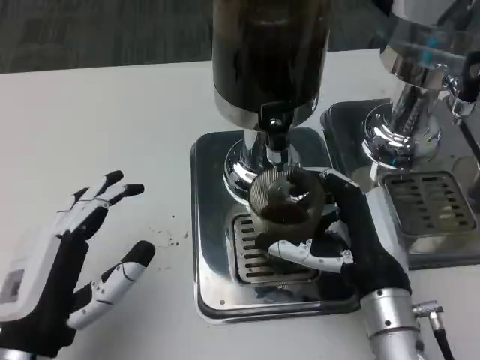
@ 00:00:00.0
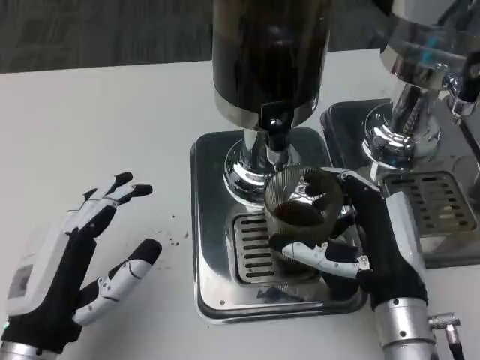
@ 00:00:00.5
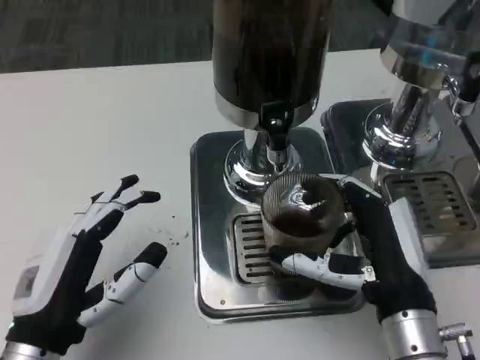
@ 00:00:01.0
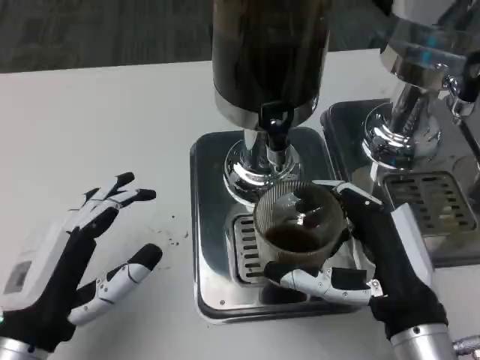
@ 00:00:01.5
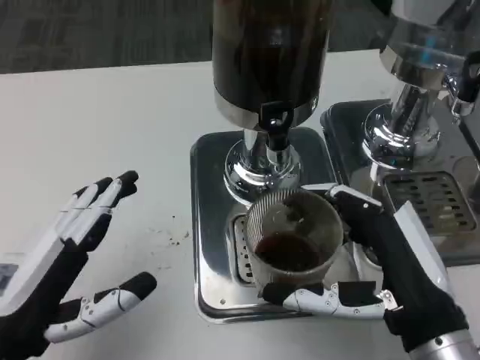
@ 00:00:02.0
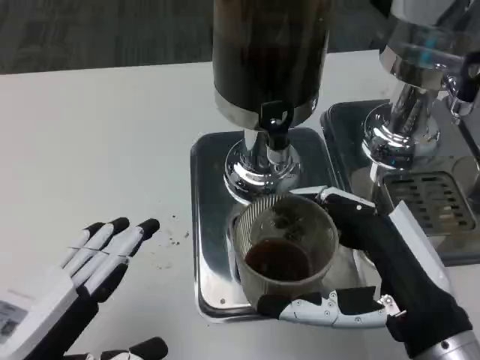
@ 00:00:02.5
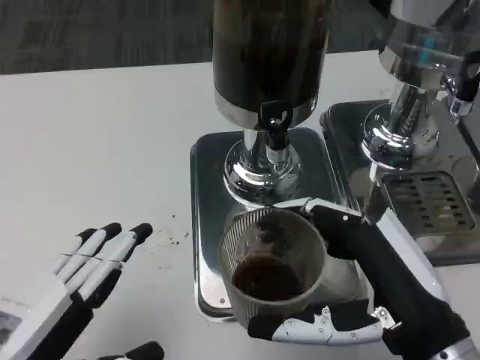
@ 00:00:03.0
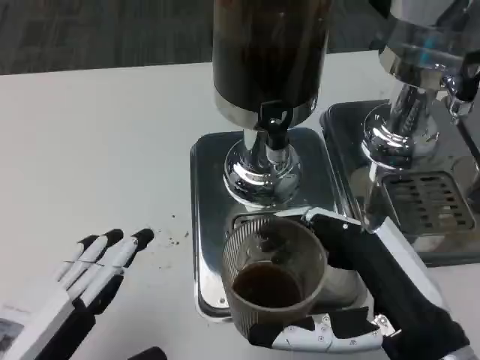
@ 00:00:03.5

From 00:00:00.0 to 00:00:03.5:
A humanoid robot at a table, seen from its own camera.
Task of the whole recording: Grasp the cup under the faucet to collect the drink, then remove the cup.
From 00:00:00.0 to 00:00:02.0: The left hand changes place by roughly 5 cm. Meanwhile the right hand shifts some 10 cm backward and upward.

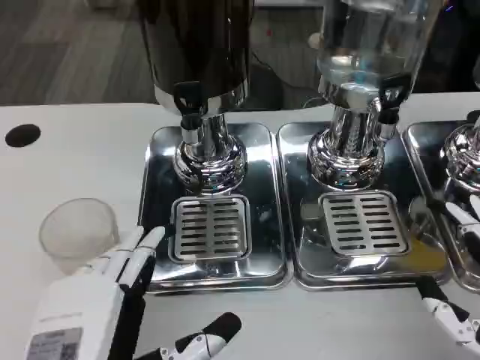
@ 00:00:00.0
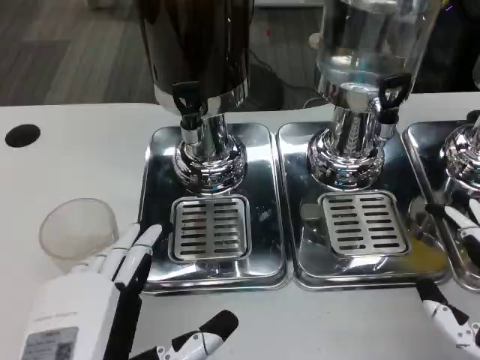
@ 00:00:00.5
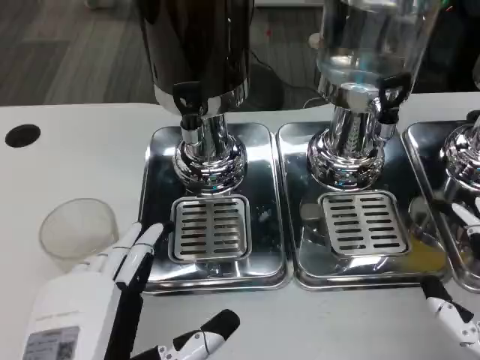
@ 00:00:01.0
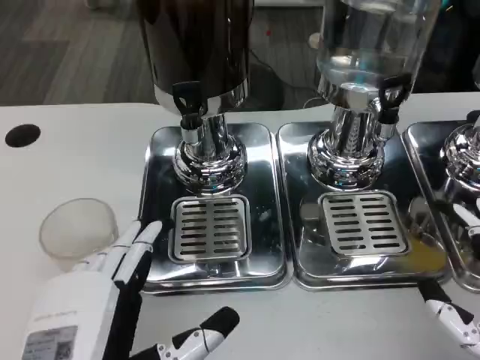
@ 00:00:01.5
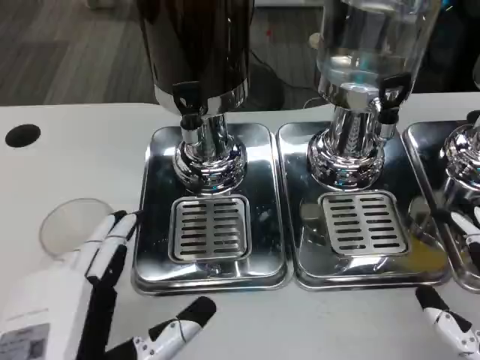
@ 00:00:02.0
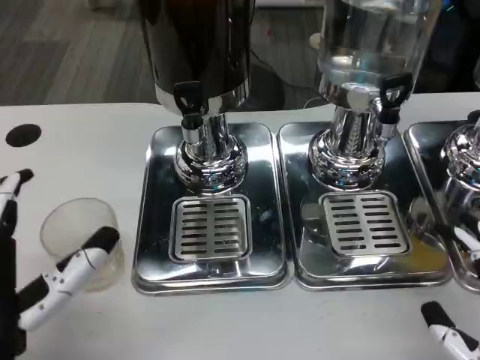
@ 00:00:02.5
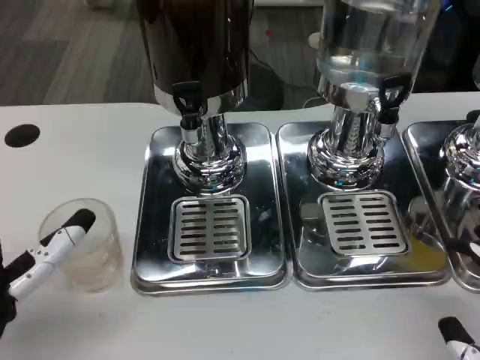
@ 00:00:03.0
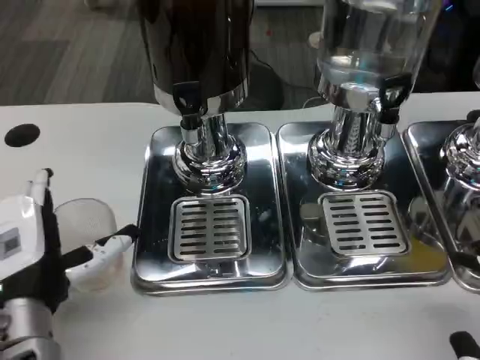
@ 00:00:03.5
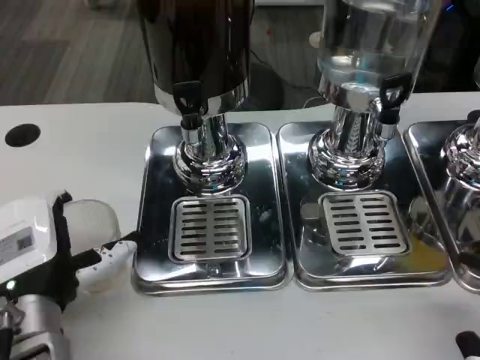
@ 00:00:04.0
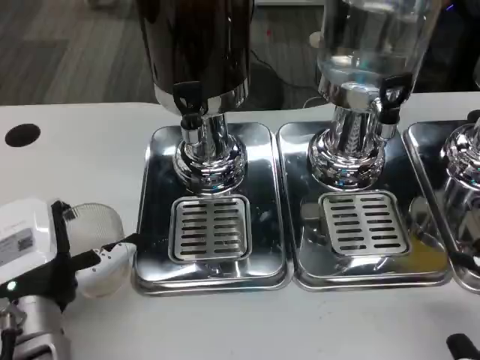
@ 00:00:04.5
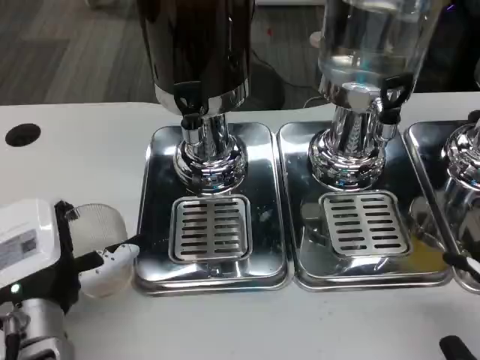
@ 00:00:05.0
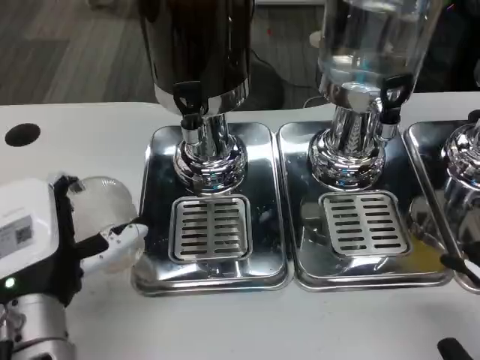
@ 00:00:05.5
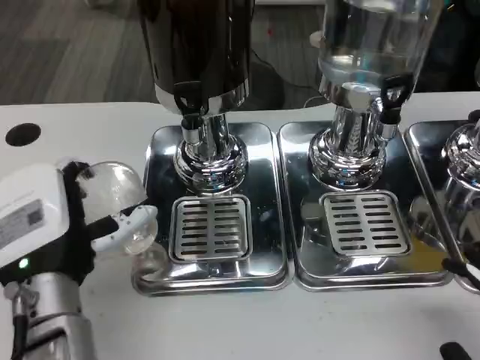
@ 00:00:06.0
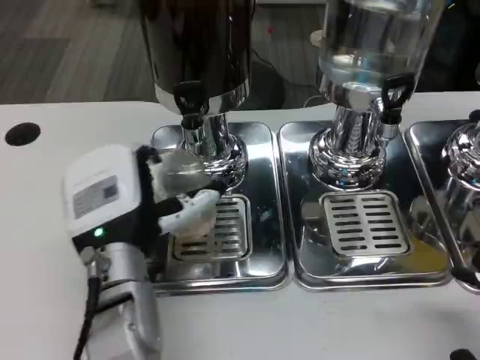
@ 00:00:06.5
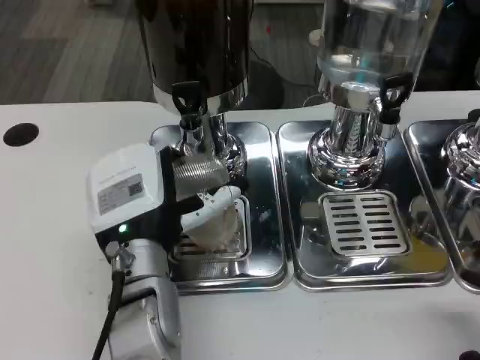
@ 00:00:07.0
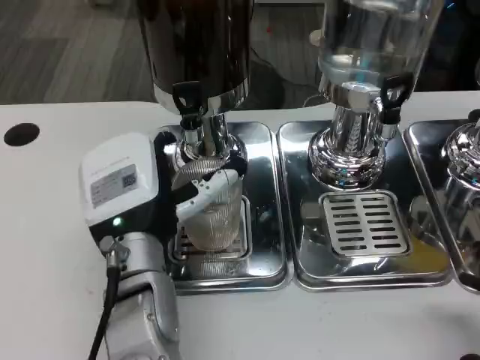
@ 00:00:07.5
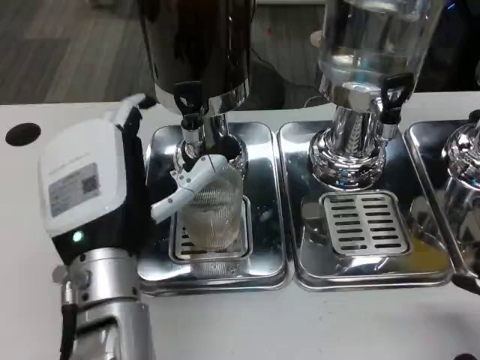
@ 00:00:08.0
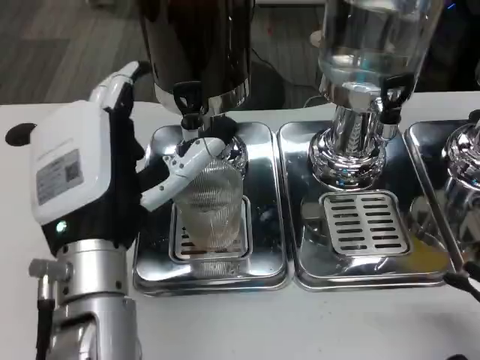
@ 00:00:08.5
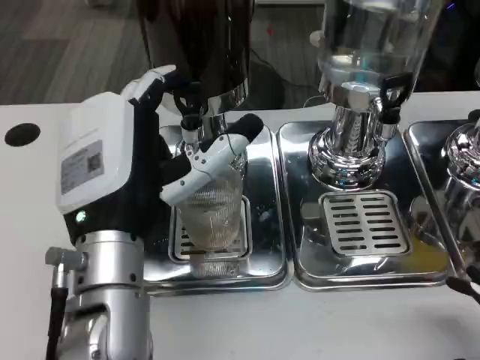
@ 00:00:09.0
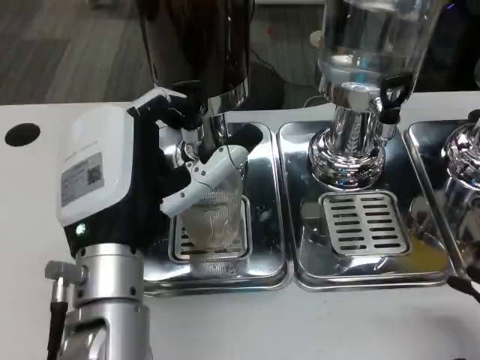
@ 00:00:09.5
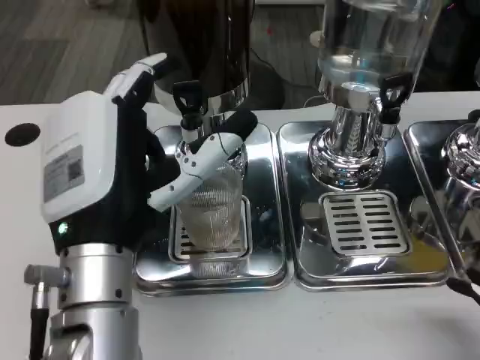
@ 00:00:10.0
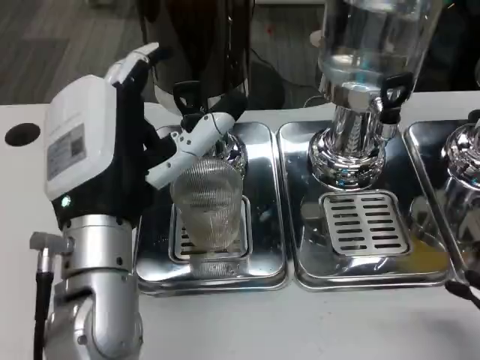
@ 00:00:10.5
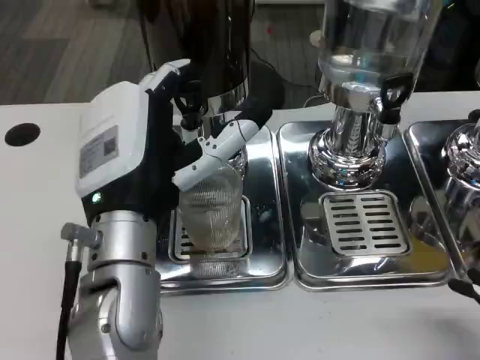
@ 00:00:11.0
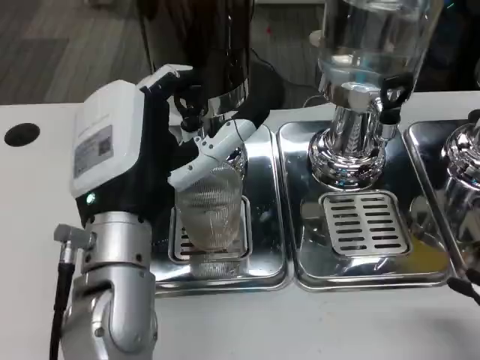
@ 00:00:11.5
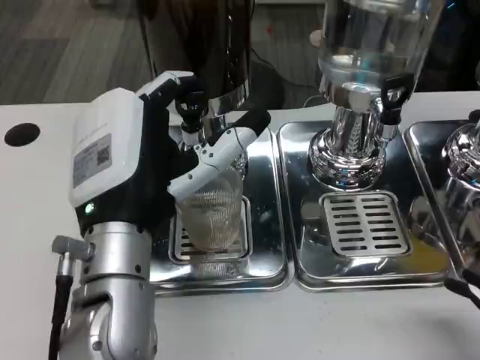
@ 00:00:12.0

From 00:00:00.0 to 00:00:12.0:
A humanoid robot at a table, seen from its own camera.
Task of the whole recording: Grasp the cup under the faucet to collect the drink, then remove the cup.
From 00:00:00.0 to 00:00:02.0: There are only small adjustments of the hands.
From 00:00:02.0 to 00:00:04.0: The left hand travels forward by some 10 cm. Meanwhile the right hand moves about 5 cm.
From 00:00:04.0 to 00:00:06.0: The hands make only small movements.
From 00:00:06.0 to 00:00:08.0: The left hand ends up about 5 cm from where it was.
From 00:00:08.0 to 00:00:12.0: The hands move only a little.

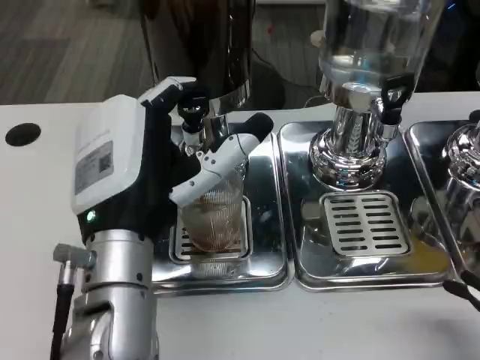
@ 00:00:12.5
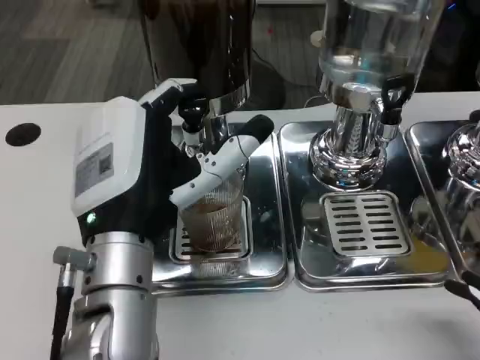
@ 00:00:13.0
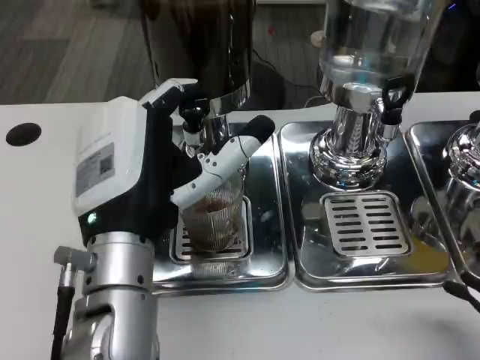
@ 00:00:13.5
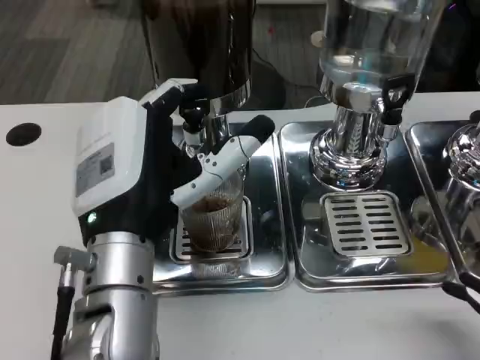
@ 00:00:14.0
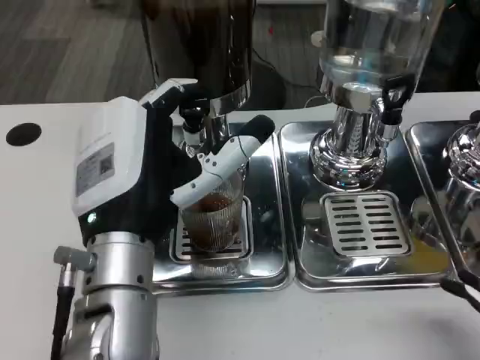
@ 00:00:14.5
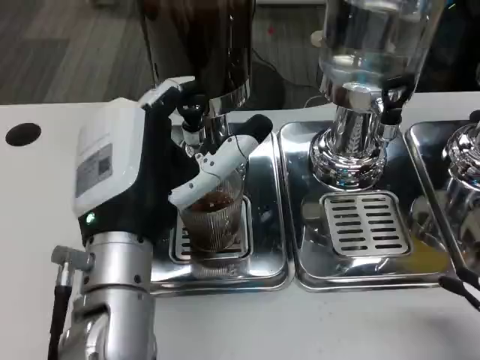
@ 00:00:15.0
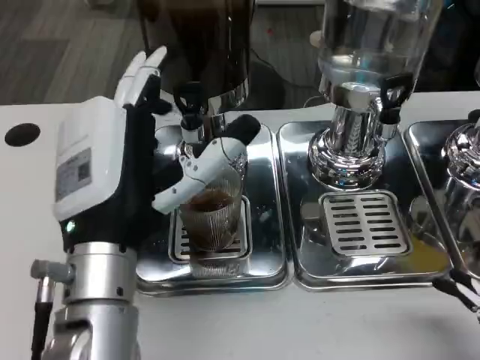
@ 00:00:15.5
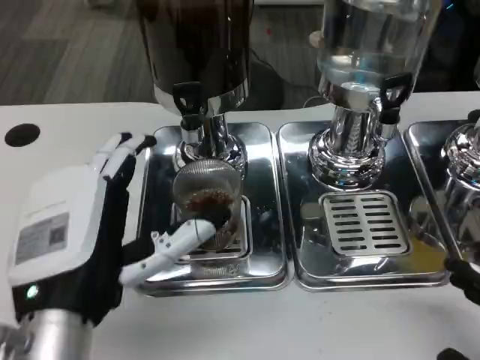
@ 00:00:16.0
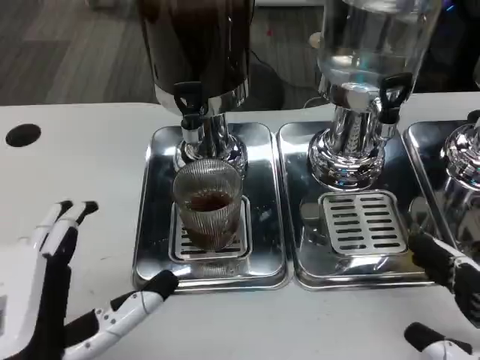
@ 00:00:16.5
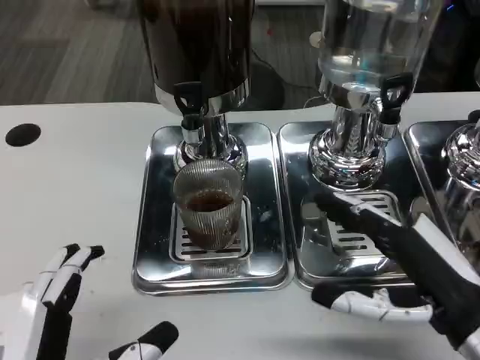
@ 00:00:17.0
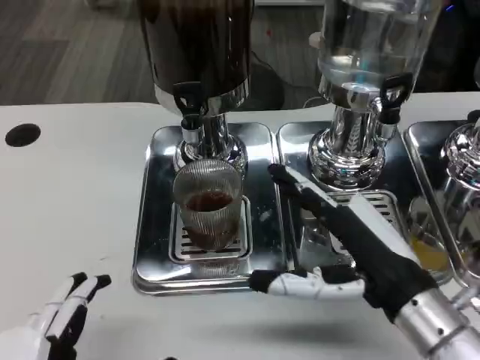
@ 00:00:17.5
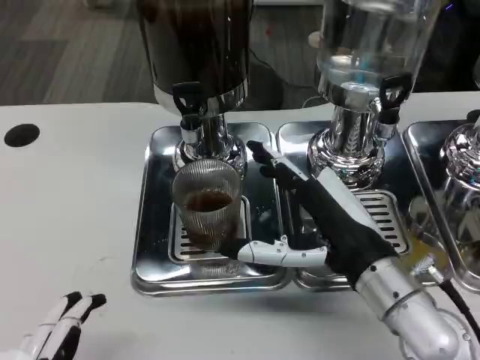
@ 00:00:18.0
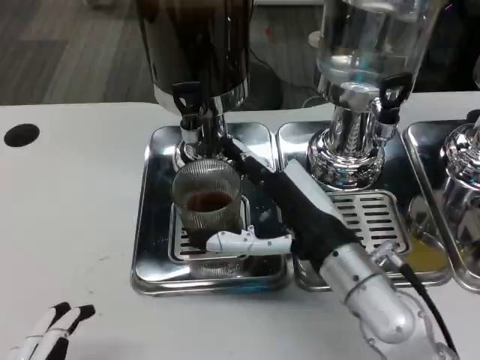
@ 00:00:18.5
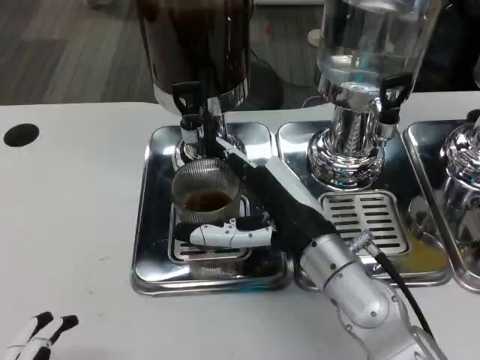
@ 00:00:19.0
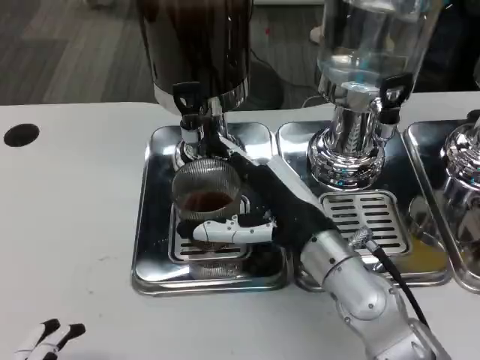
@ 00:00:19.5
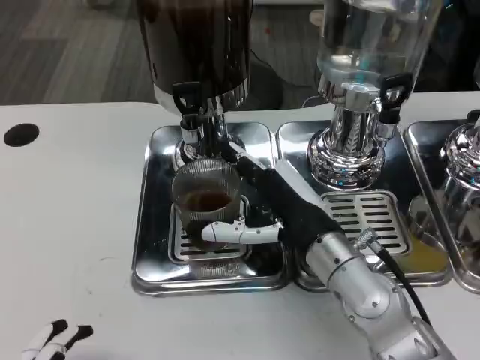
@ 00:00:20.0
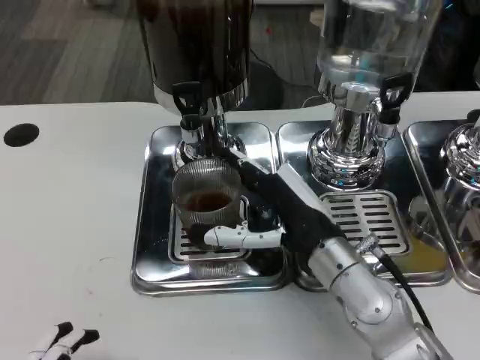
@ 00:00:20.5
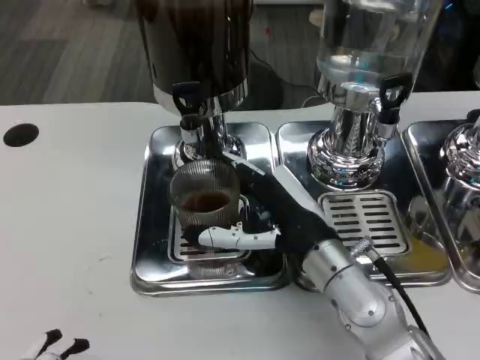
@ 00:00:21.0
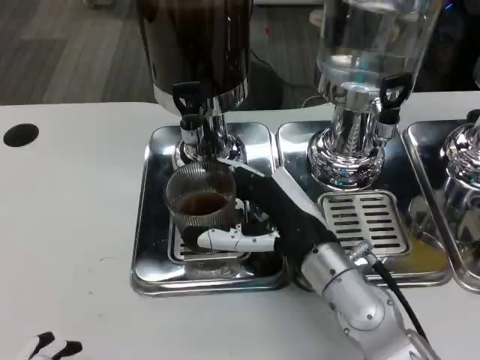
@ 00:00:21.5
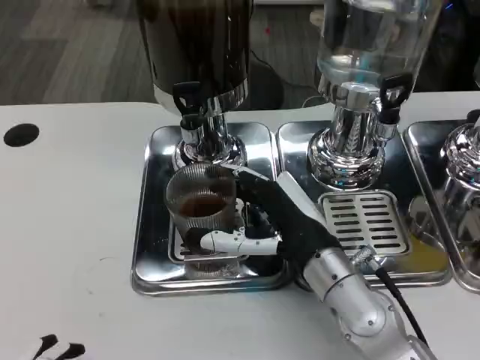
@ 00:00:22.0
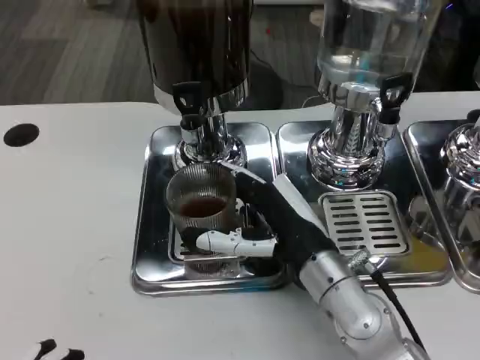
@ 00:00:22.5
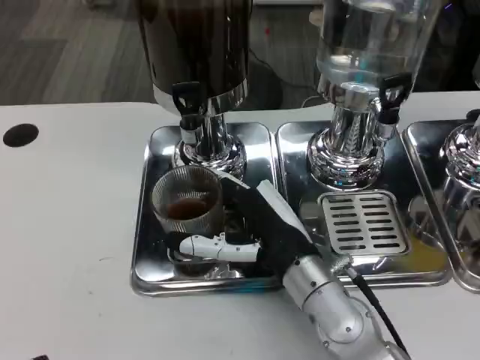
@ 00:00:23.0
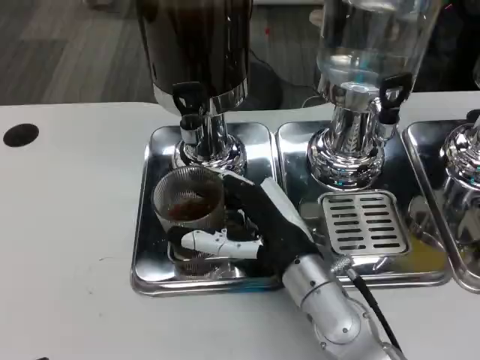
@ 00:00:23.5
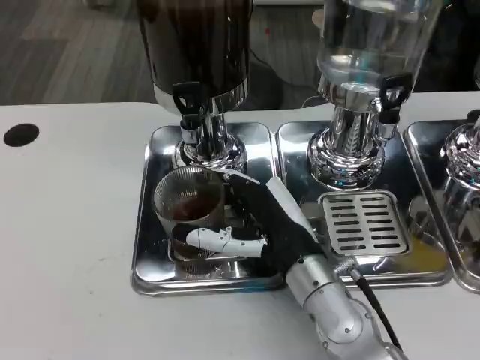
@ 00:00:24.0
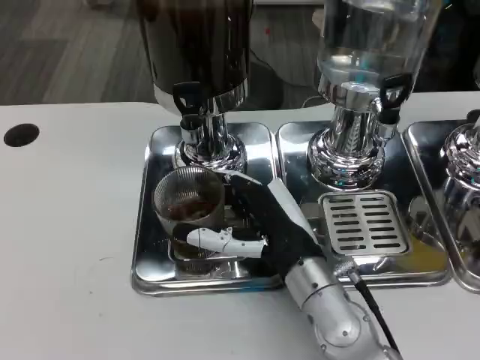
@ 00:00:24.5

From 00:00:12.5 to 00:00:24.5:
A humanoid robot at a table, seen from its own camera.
Task of the whole recording: Grasp the cup under the faucet to collect the drink, then remove the cup.
From 00:00:12.5 to 00:00:14.5: Neither hand changes place.
From 00:00:14.5 to 00:00:16.5: The right hand goes some 5 cm forward. The left hand is displaced backward and to the left by approximately 15 cm.
From 00:00:16.5 to 00:00:18.5: The left hand goes approximately 10 cm backward. The right hand is displaced to the left and forward by some 20 cm.
From 00:00:18.5 to 00:00:24.5: The hands make only small movements.
